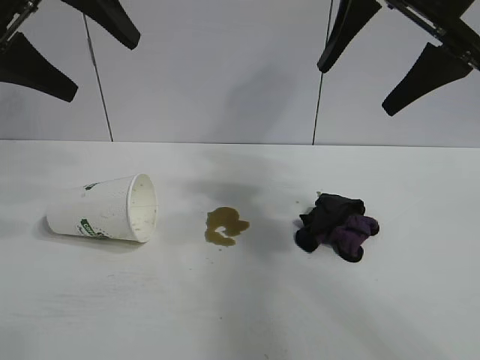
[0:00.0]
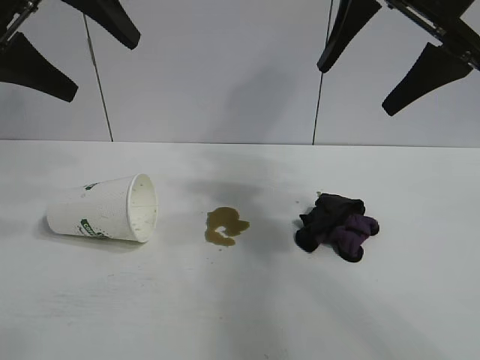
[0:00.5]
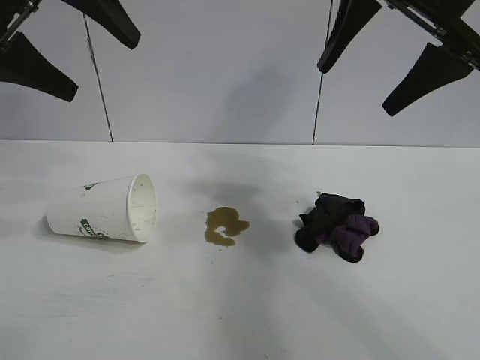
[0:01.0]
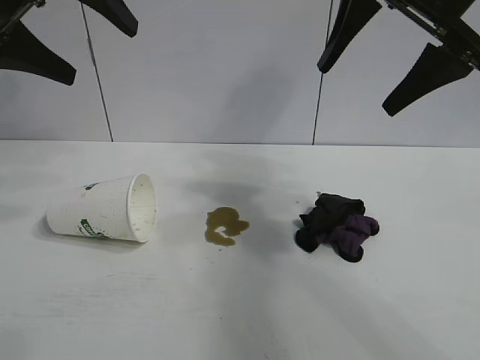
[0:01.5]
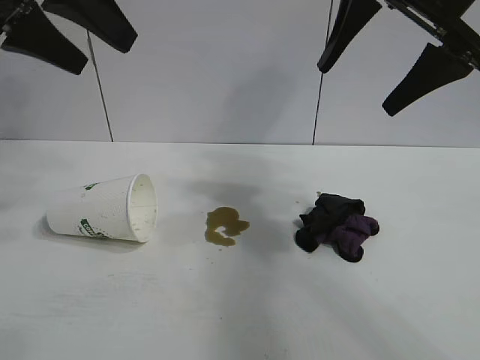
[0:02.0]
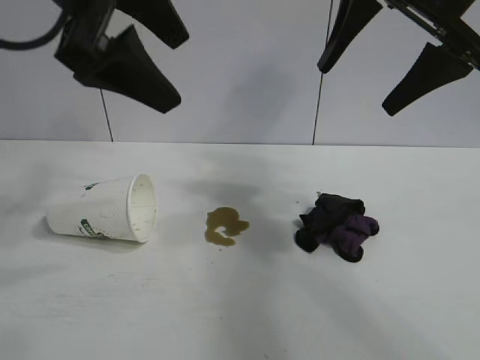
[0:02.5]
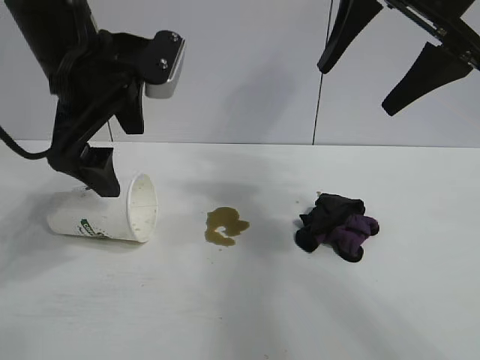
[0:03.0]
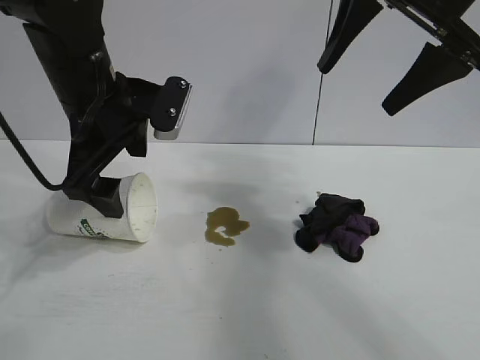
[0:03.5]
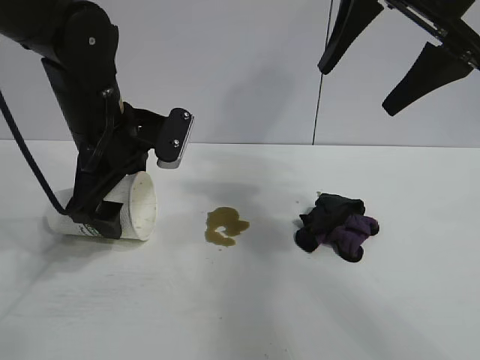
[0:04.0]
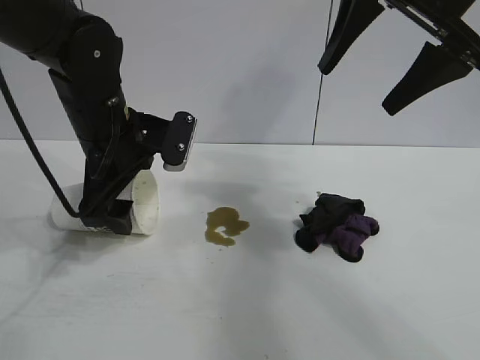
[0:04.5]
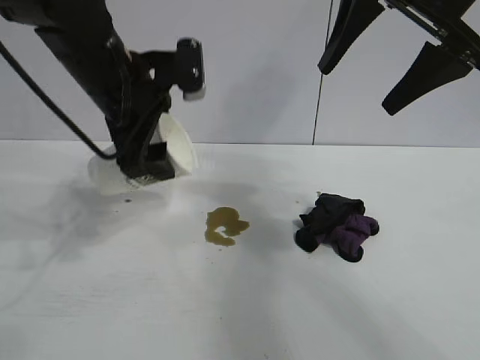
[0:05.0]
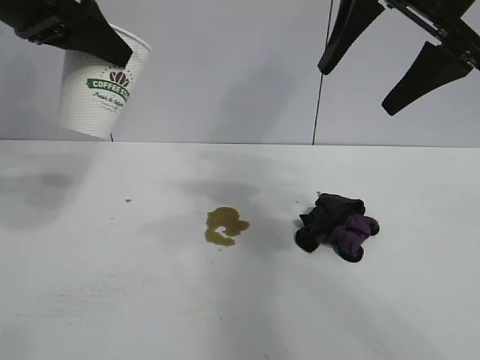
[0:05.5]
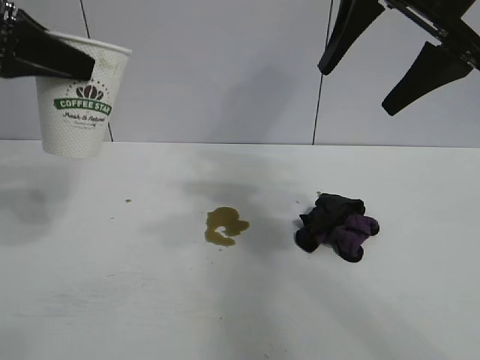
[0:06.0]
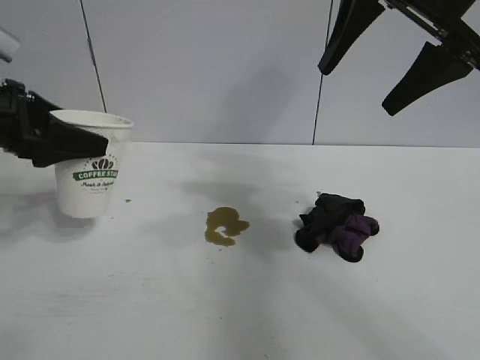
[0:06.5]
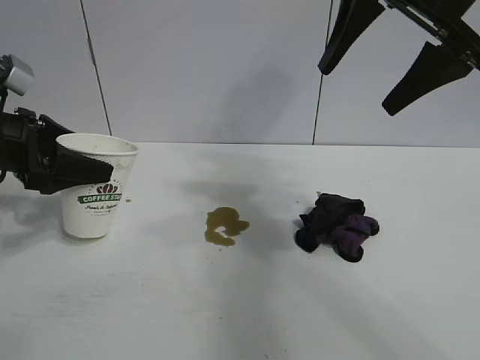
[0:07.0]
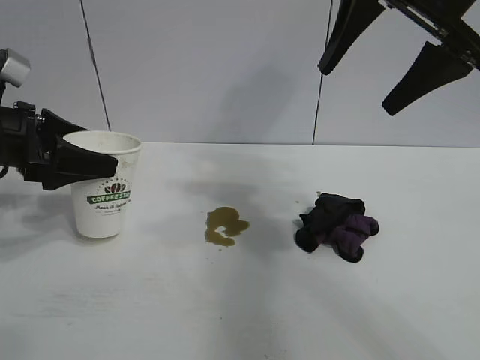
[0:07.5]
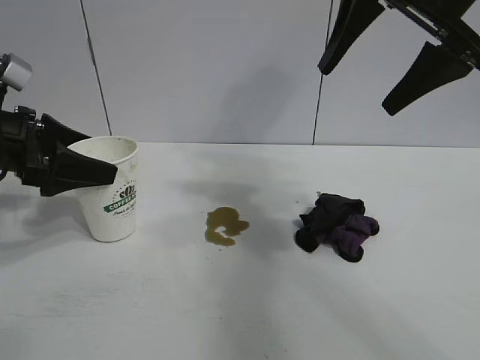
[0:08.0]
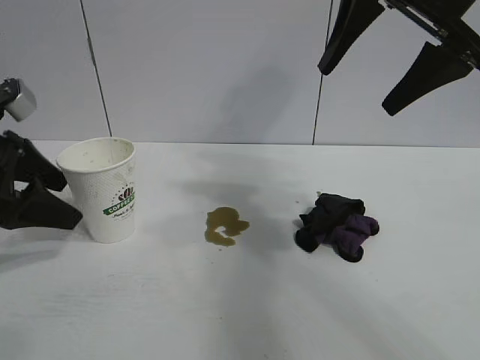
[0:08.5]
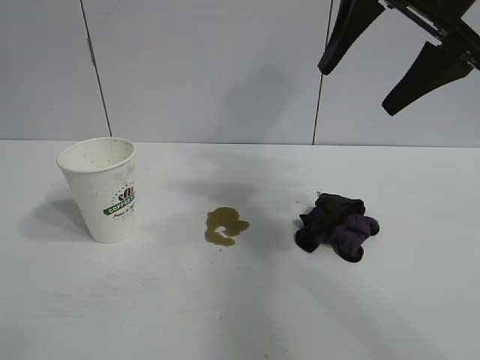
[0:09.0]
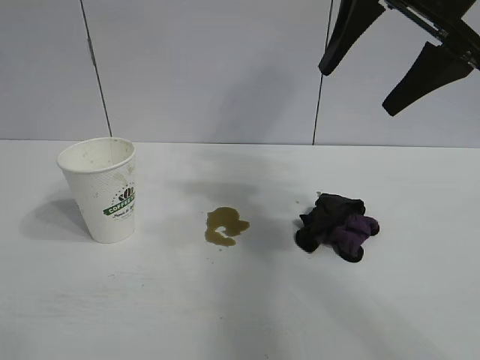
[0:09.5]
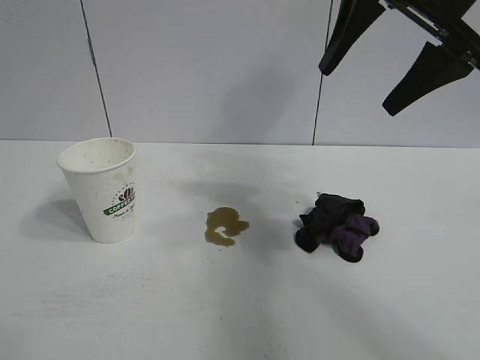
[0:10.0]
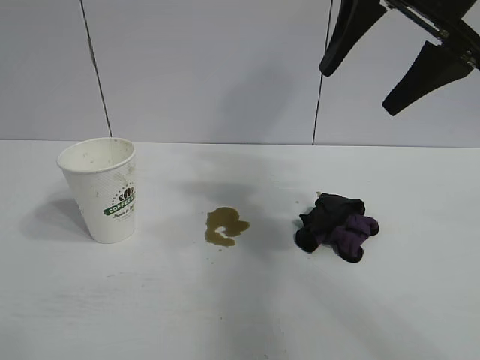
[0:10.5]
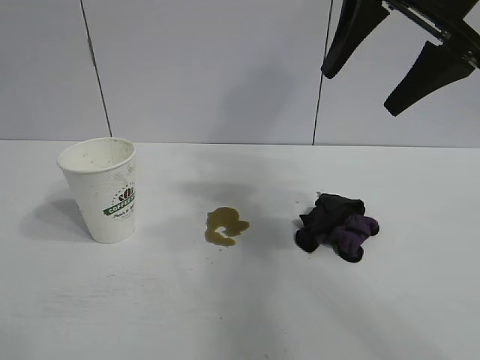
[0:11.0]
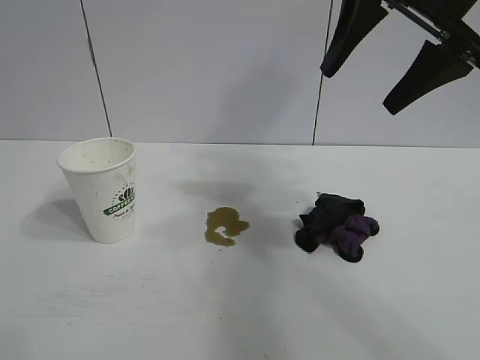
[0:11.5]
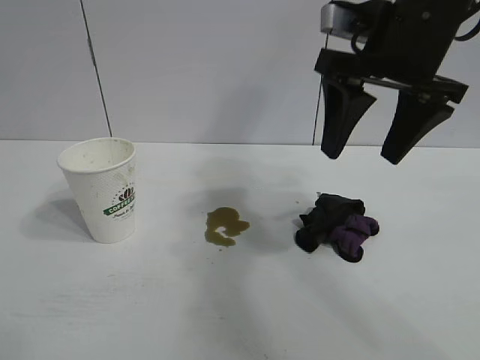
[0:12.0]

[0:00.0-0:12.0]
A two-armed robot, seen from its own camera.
Task of the whole recording: the left gripper pick up the fallen cup and place it upright, the right gripper grasp the black rag and wipe the stain on the table, the right gripper put the black rag back in its original position.
Step, 0:01.5 to 0:04.5: Grasp the paper cup with left gripper.
Step, 0:05.0 to 0:08.0: Stand the paper cup upright with left gripper.

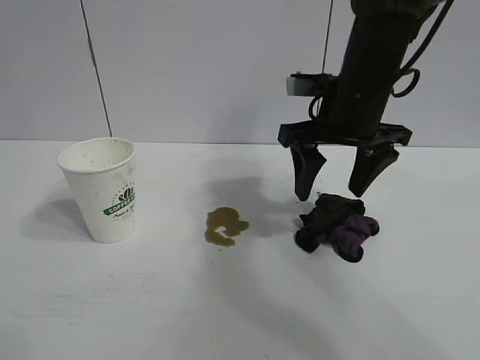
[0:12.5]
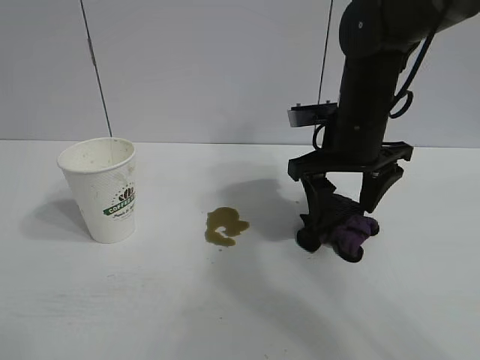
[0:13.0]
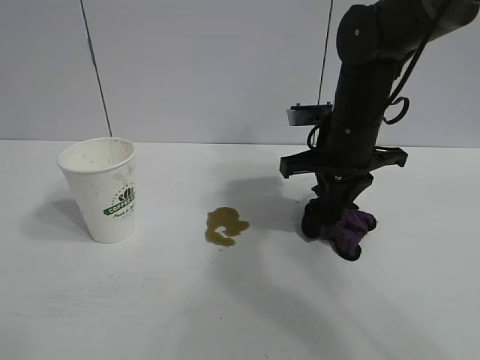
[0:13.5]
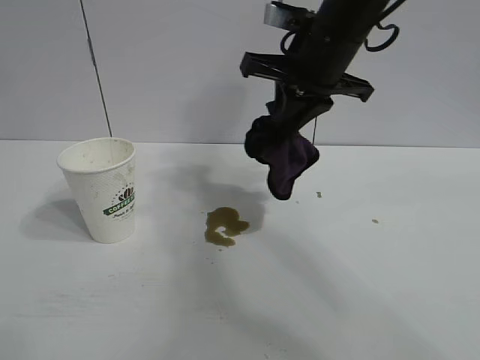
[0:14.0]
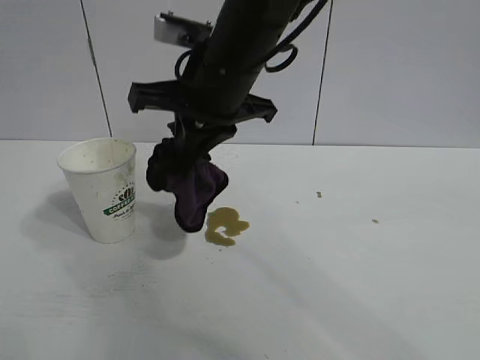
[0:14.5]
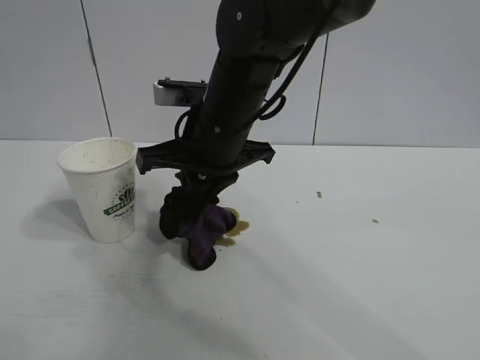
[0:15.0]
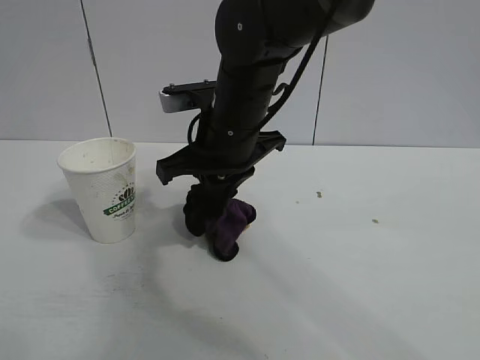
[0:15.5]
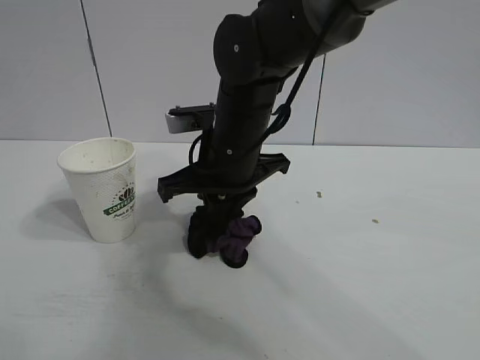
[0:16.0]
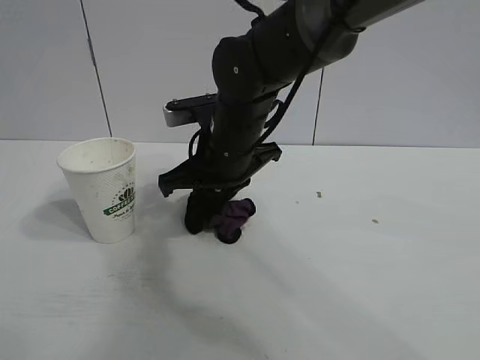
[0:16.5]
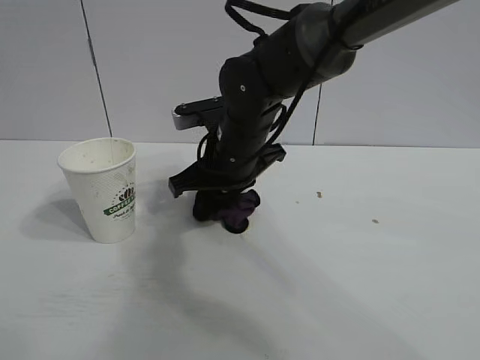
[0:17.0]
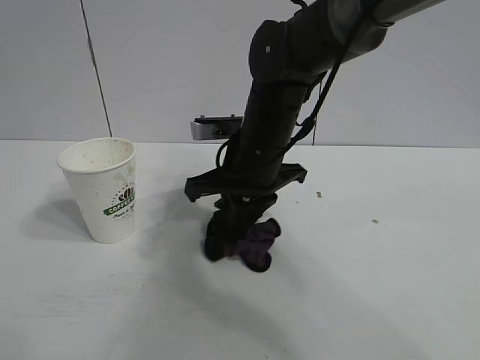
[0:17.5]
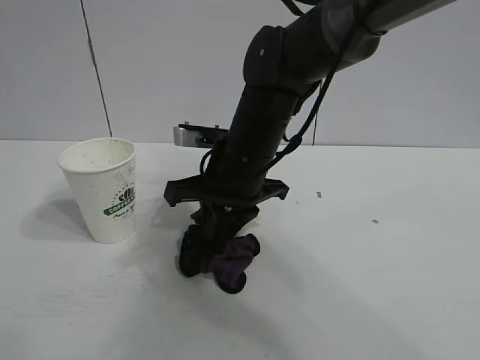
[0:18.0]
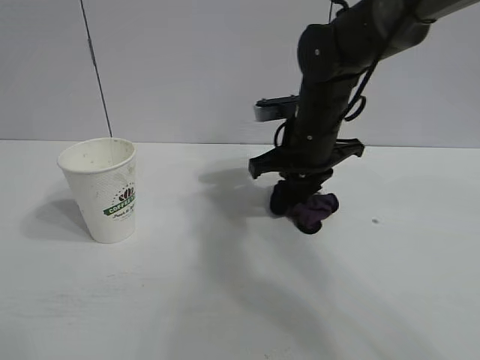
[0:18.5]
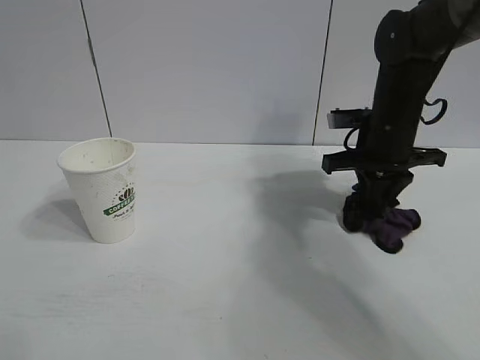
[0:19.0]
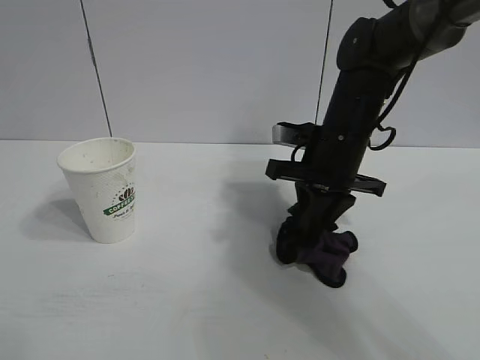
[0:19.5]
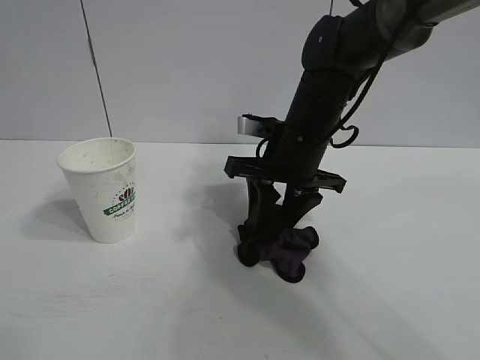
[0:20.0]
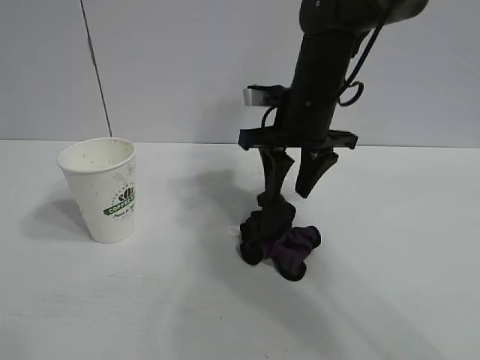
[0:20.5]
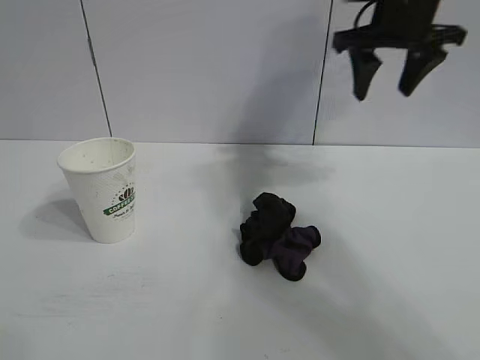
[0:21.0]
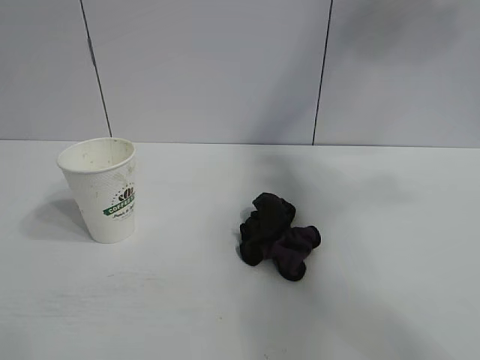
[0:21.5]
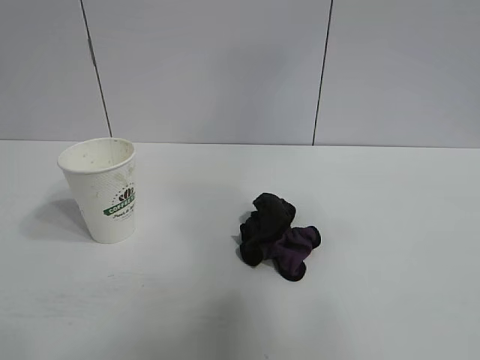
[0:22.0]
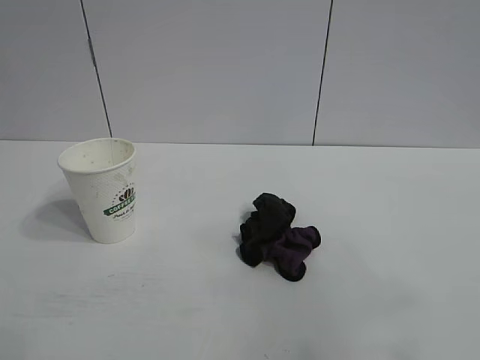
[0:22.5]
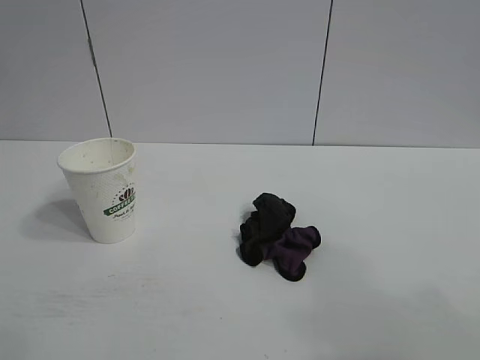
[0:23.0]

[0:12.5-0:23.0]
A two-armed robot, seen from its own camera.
Task of the whole recording: the left gripper pick up the fallen cup and place it upright, the right gripper grasp the black rag and wipe the stain on the table, the right gripper put the black rag back in its original position.
Step, 0:13.5 to 0:19.5: Wipe the stains off the table with the rag with right gripper.
